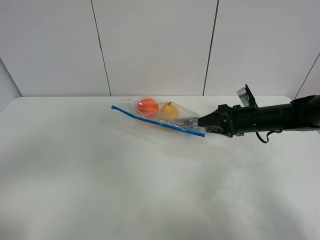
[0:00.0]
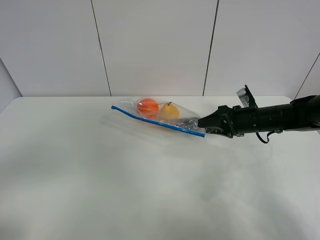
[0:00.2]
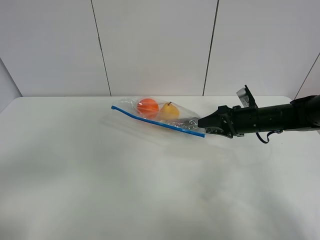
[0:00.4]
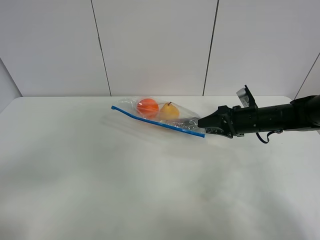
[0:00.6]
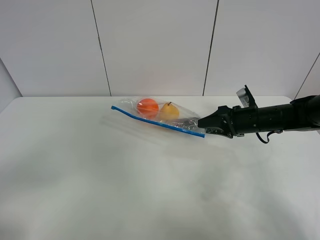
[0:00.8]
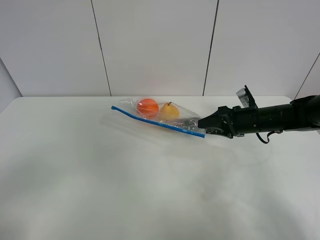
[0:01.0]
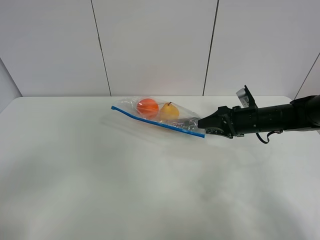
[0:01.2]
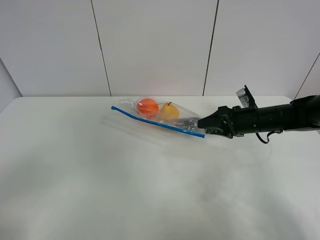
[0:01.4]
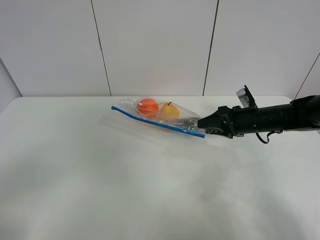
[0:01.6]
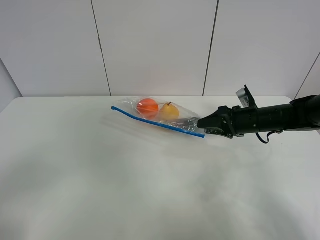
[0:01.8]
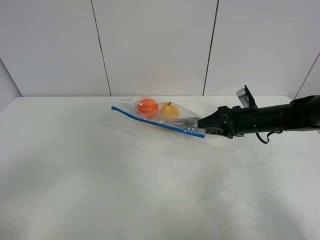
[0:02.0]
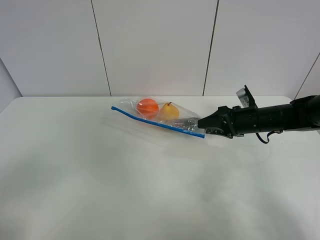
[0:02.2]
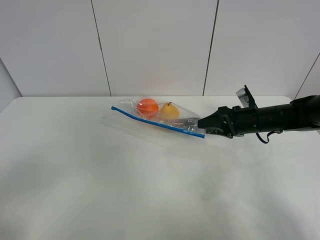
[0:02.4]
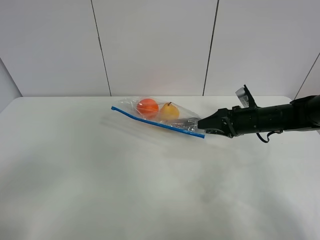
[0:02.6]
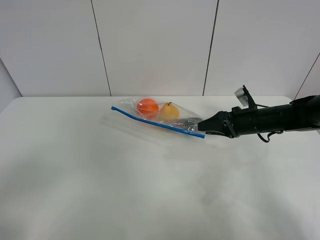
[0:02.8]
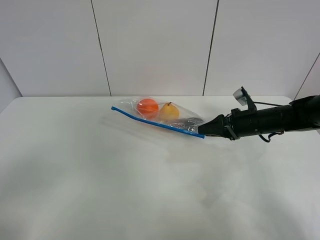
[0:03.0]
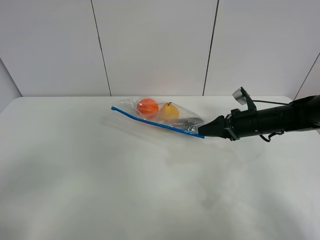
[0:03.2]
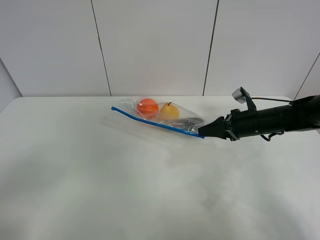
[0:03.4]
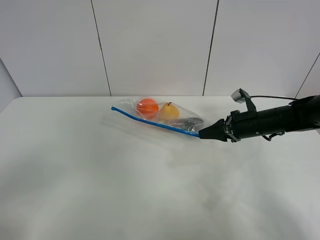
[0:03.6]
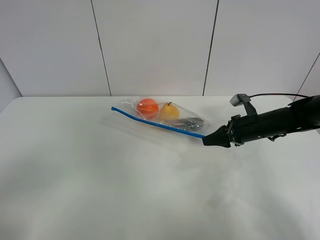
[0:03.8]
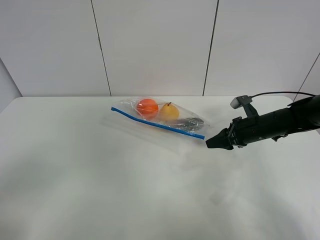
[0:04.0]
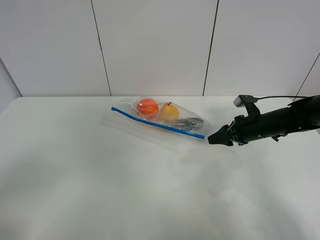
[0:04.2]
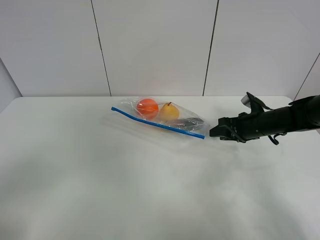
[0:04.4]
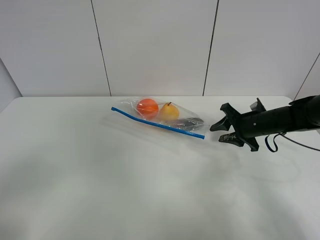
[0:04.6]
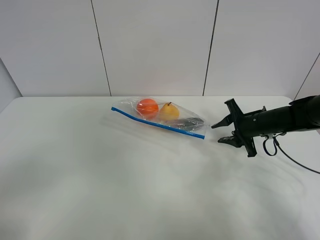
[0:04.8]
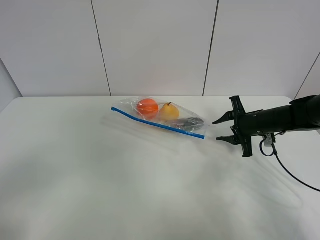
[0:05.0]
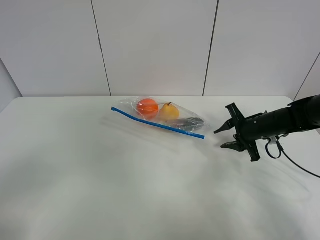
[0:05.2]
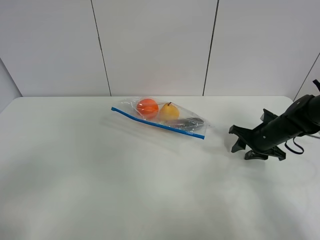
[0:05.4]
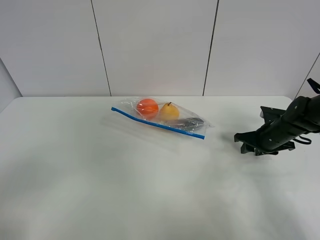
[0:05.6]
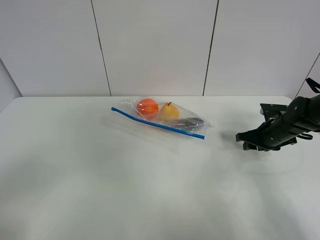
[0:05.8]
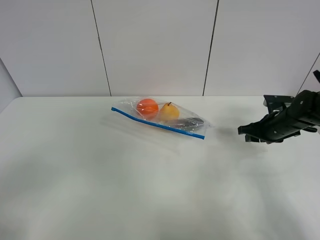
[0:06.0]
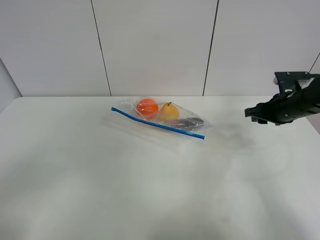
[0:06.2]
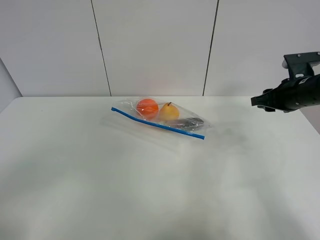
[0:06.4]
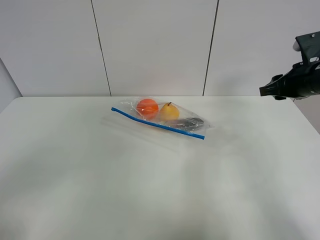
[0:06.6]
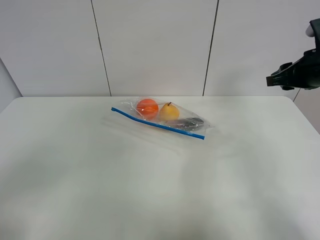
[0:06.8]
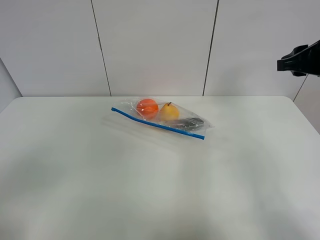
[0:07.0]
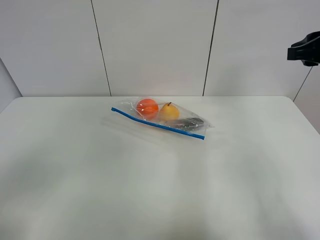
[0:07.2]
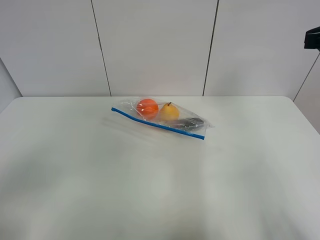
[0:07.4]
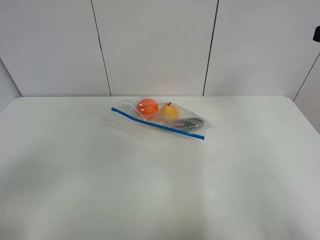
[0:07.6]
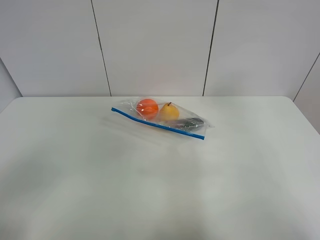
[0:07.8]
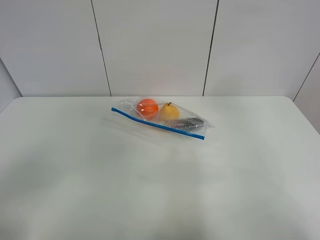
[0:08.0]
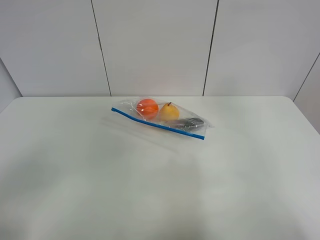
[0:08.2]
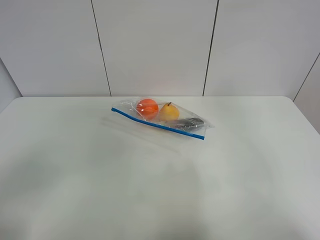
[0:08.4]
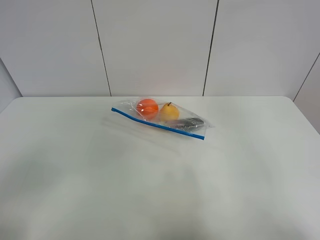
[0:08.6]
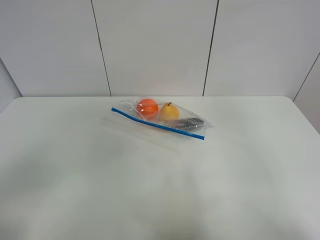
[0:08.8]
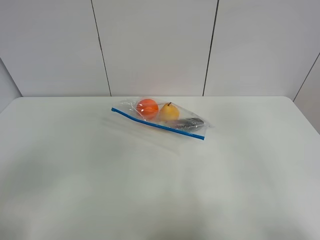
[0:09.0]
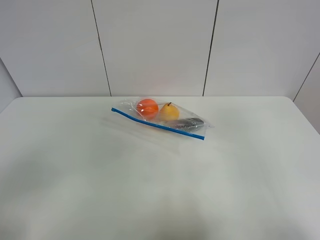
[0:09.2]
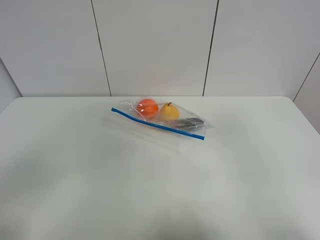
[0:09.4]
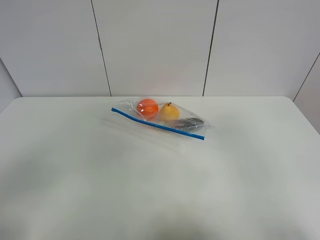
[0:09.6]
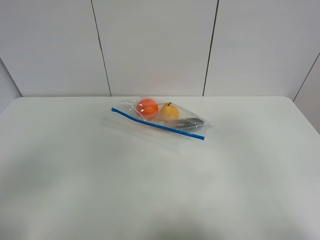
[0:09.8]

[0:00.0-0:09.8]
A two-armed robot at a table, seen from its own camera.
Step, 0:00.0 to 0:04.0: Place the fruit bag with right gripper.
0:00.0 to 0:01.4: The left gripper is displaced downward by roughly 5 cm.
0:01.4 to 0:02.8: The grippers move only a little.
0:04.2 to 0:05.6: The right gripper moves some 5 cm.
0:05.6 to 0:07.0: The right gripper shifts some 25 cm upward.
0:07.0 to 0:08.4: The right gripper moves backward and upward, some 15 cm.

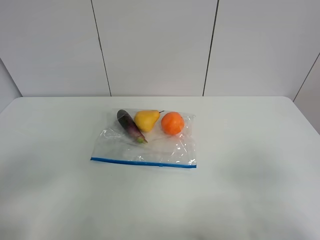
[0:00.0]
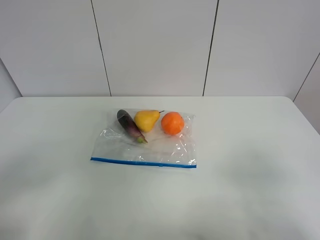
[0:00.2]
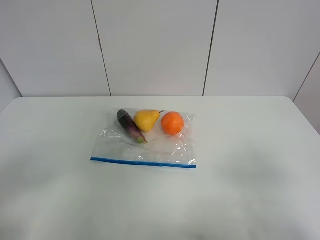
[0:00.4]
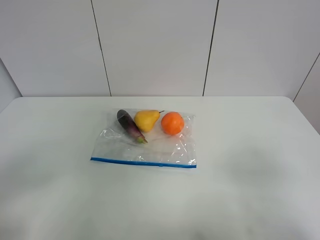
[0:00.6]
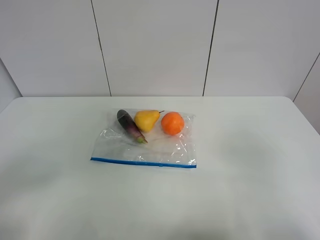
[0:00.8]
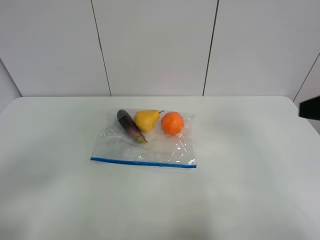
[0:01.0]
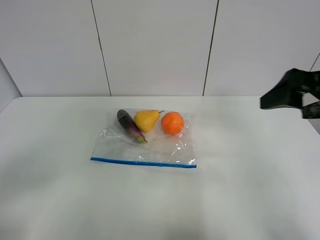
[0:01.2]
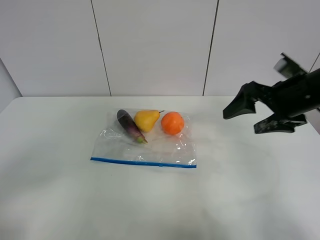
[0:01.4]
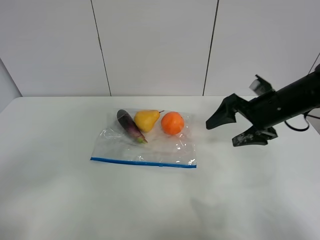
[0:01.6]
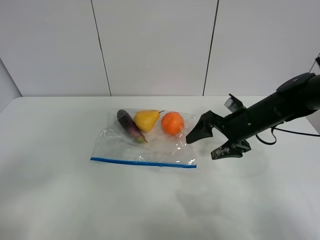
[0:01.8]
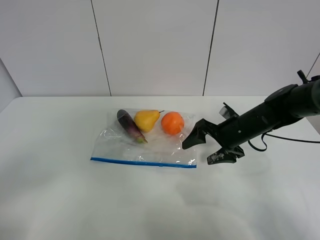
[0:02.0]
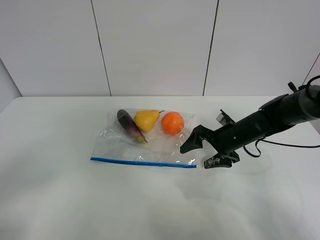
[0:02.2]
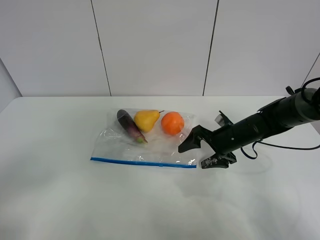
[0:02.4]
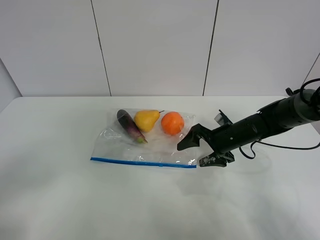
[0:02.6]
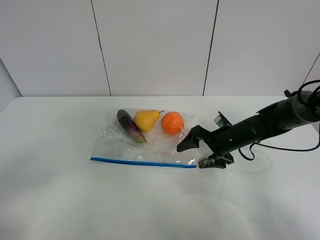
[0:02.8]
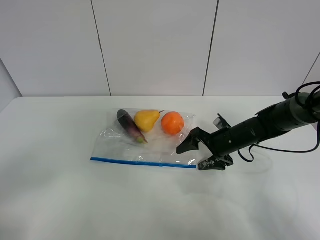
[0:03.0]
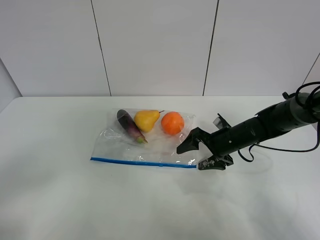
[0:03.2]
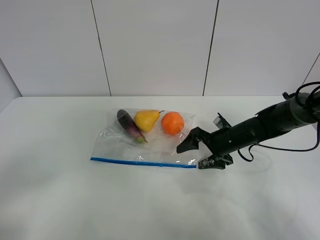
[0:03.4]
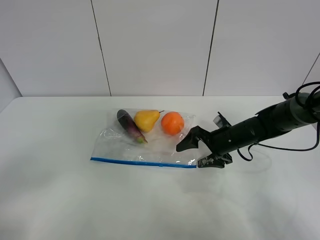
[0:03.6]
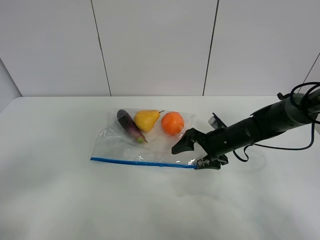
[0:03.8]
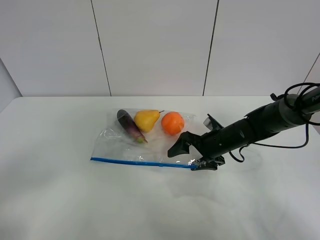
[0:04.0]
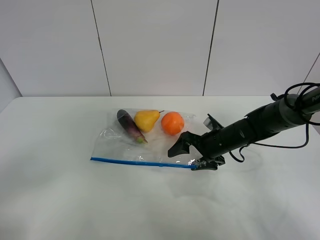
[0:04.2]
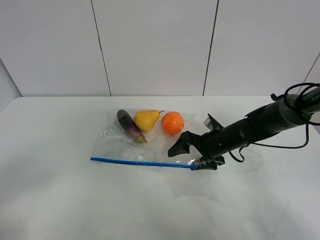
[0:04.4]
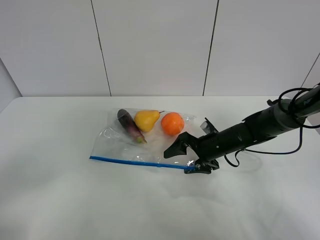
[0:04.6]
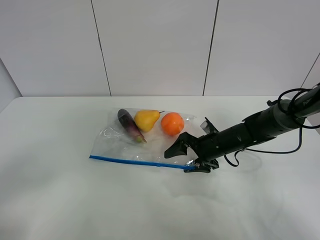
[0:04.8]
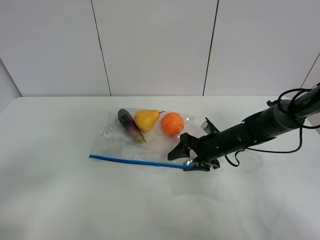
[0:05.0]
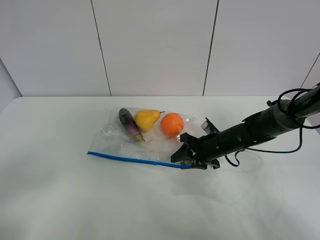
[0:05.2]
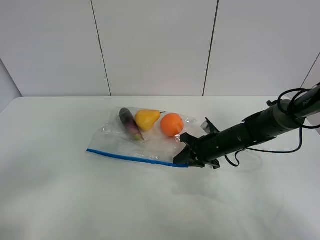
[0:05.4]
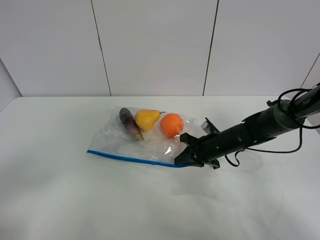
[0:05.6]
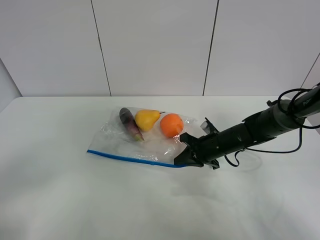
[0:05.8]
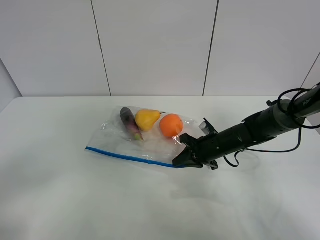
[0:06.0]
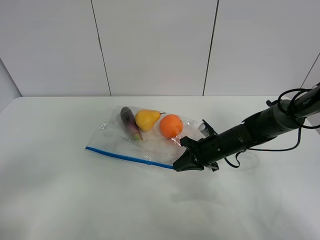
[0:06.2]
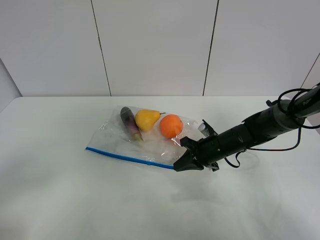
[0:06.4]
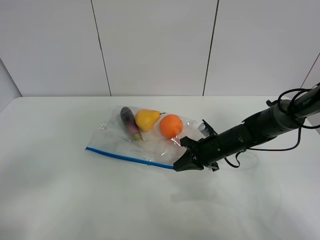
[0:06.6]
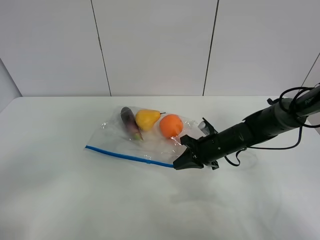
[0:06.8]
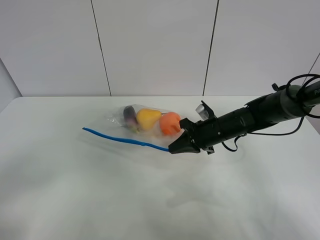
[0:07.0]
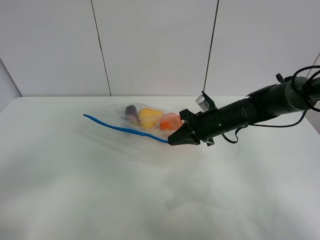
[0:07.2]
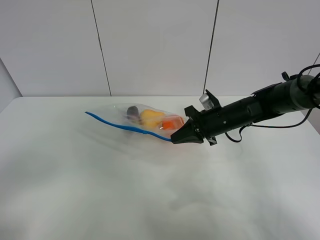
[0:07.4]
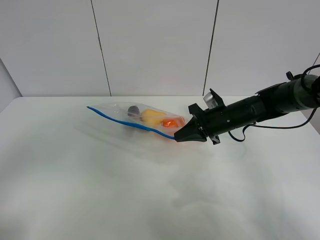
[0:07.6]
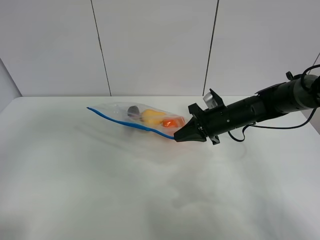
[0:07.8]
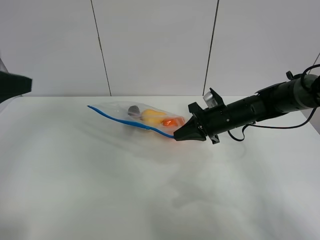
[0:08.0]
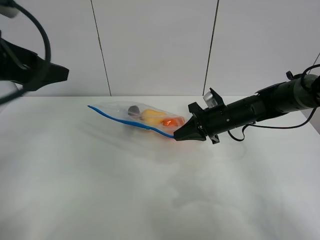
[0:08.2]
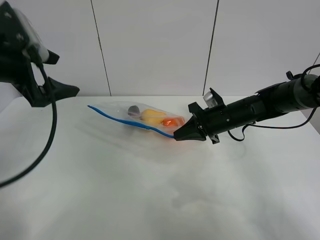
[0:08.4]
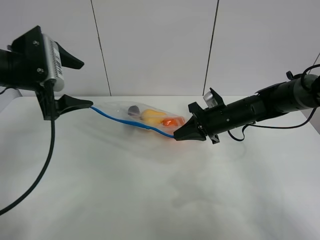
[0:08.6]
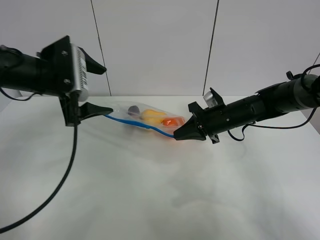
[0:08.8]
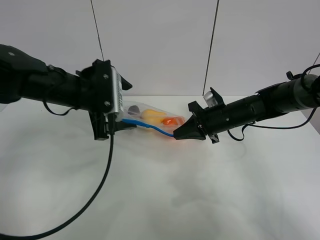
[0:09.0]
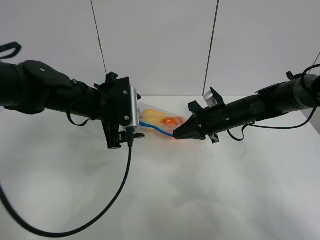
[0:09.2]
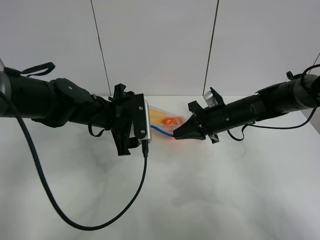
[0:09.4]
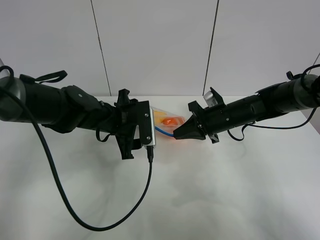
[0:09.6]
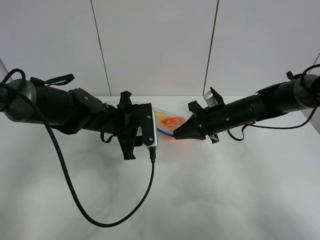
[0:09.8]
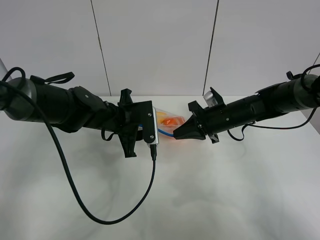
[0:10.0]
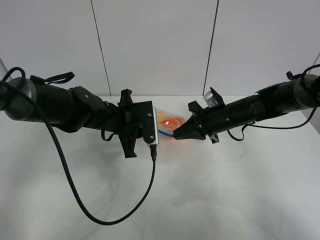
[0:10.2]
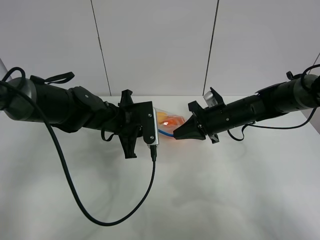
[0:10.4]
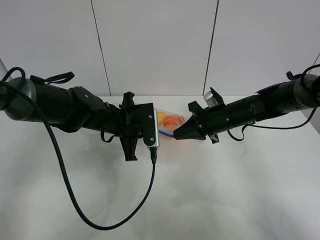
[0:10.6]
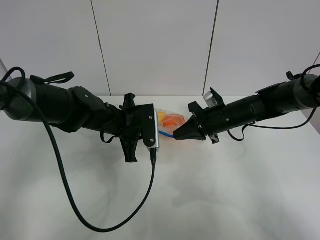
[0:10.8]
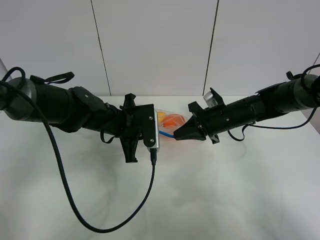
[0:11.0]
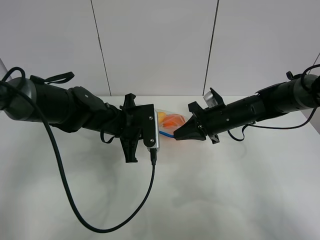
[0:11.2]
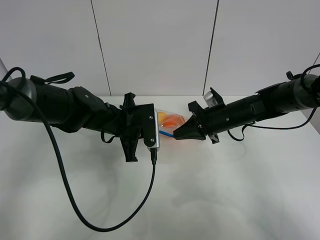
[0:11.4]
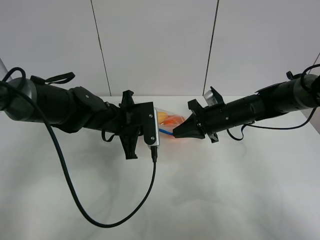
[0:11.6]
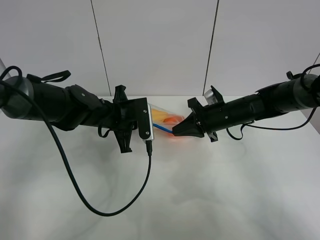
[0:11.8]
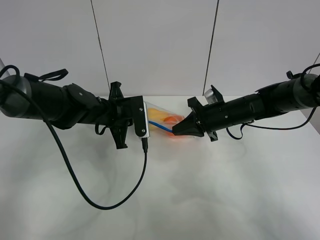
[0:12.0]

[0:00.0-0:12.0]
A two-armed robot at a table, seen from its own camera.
Step, 0:00.0 to 0:06.2: Grasp the fruit bag with right gripper.
Step, 0:06.4 to 0:07.6: Lift the fruit bag with your right gripper.
0:00.0 to 0:01.6: The right gripper travels forward by some 30 cm.
0:01.6 to 0:03.0: The right gripper heads downward, covering roughly 10 cm.
0:03.0 to 0:04.4: The grippers make only small movements.
0:04.4 to 0:06.0: The right gripper closes.
0:06.0 to 0:07.6: Both grippers move upward, approximately 5 cm.
0:07.6 to 0:09.0: The left gripper is displaced forward and to the right by roughly 30 cm.
0:09.0 to 0:10.4: The left gripper goes some 10 cm downward, and closes up.
0:10.4 to 0:12.0: The grippers move only a little.
